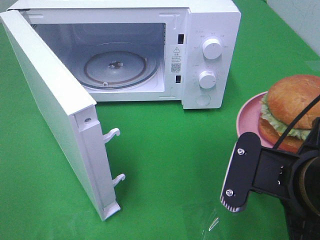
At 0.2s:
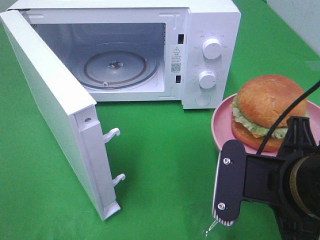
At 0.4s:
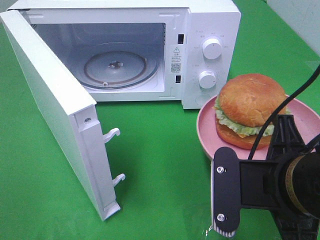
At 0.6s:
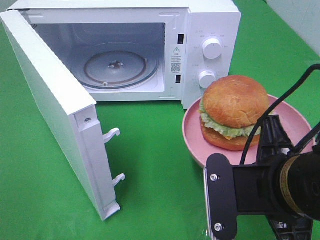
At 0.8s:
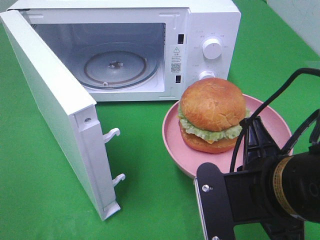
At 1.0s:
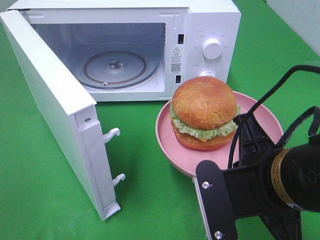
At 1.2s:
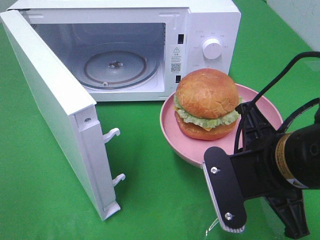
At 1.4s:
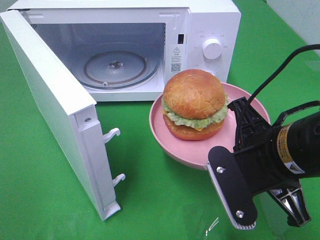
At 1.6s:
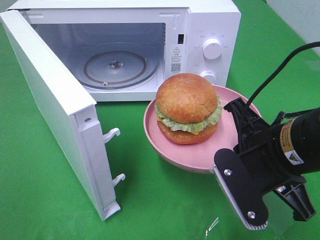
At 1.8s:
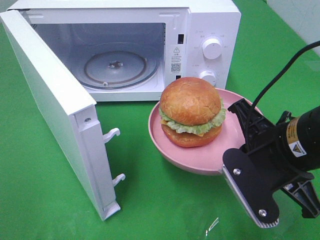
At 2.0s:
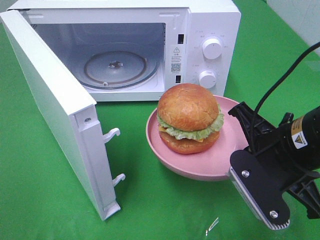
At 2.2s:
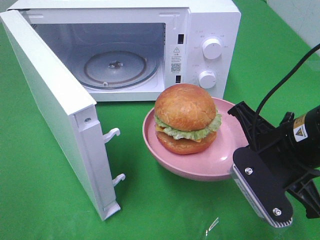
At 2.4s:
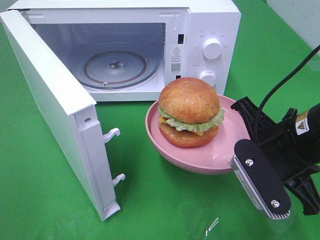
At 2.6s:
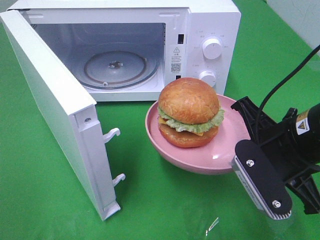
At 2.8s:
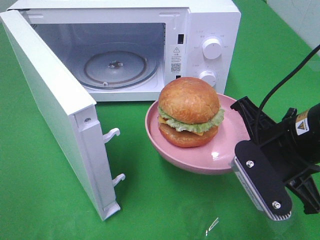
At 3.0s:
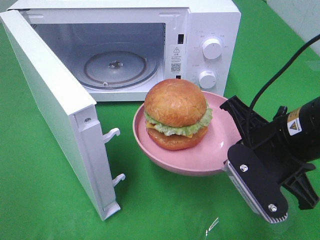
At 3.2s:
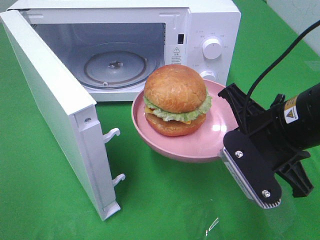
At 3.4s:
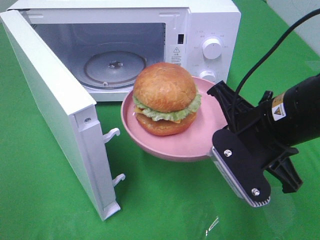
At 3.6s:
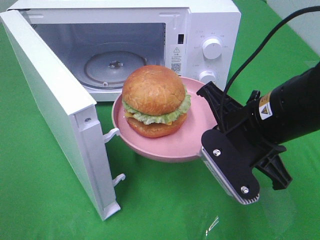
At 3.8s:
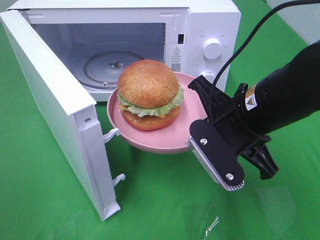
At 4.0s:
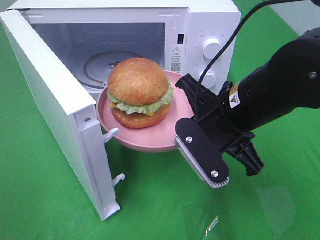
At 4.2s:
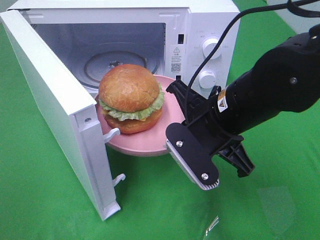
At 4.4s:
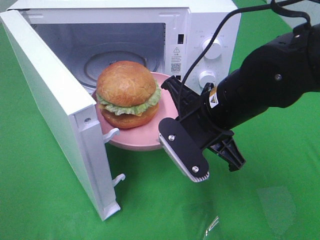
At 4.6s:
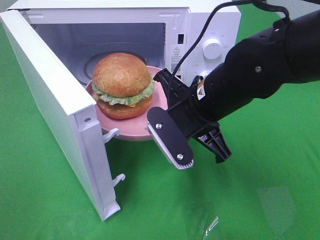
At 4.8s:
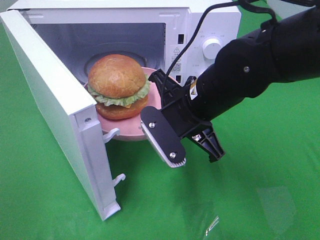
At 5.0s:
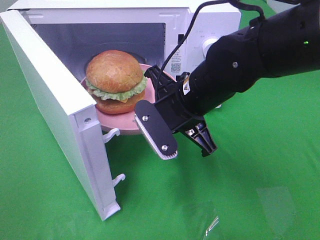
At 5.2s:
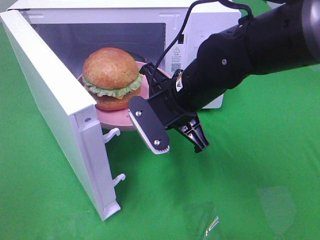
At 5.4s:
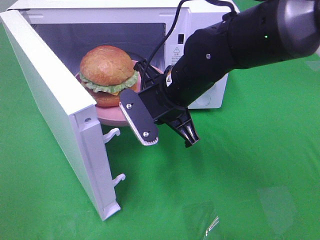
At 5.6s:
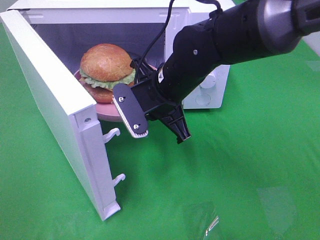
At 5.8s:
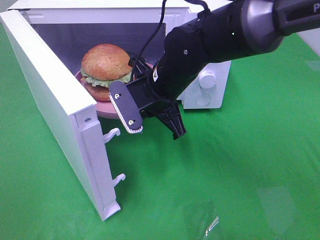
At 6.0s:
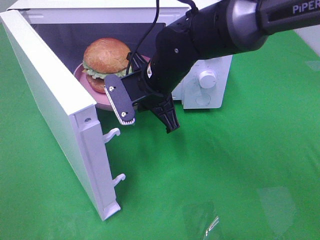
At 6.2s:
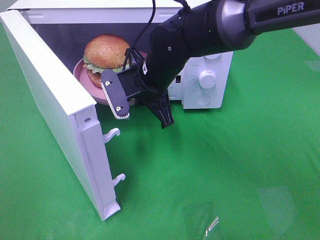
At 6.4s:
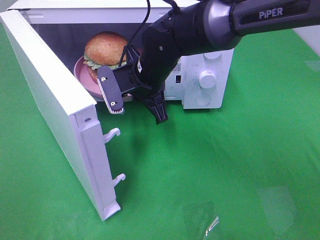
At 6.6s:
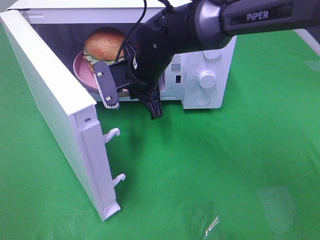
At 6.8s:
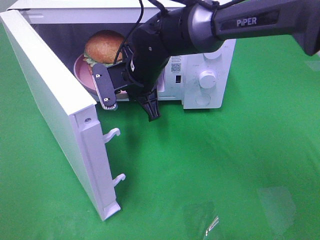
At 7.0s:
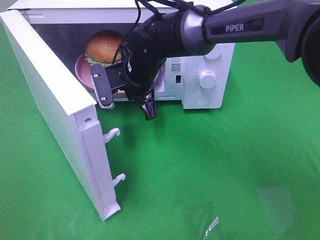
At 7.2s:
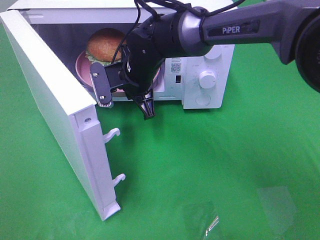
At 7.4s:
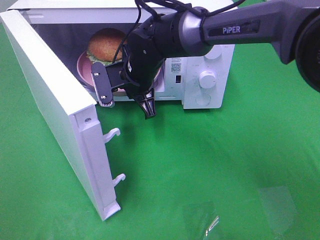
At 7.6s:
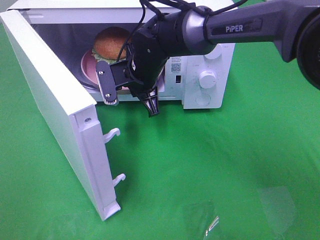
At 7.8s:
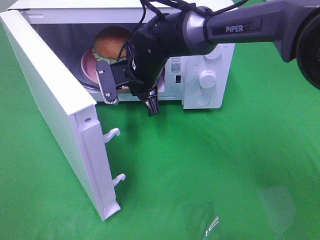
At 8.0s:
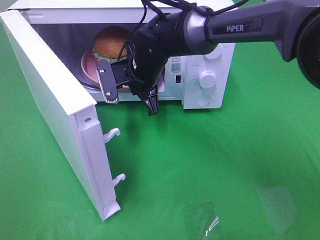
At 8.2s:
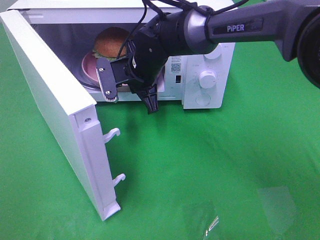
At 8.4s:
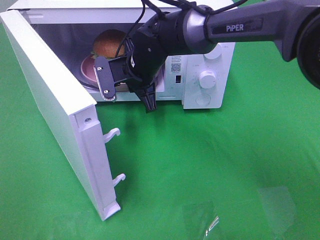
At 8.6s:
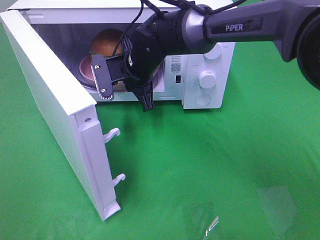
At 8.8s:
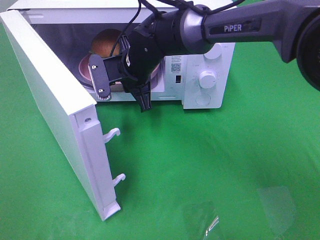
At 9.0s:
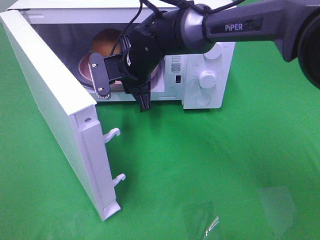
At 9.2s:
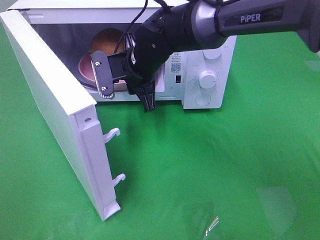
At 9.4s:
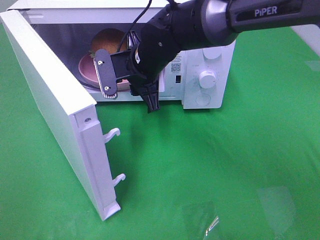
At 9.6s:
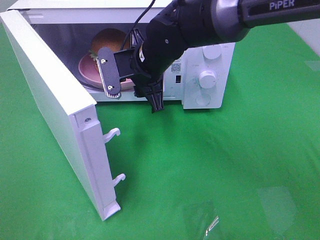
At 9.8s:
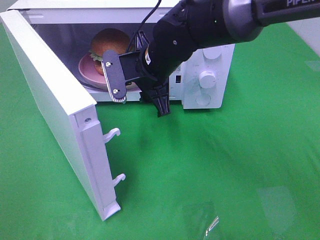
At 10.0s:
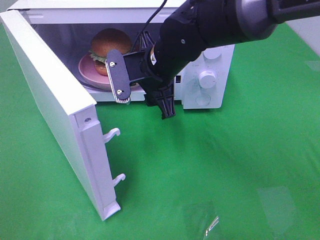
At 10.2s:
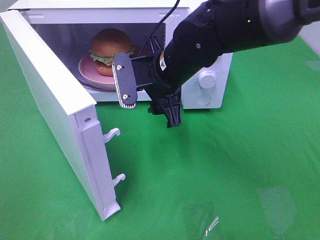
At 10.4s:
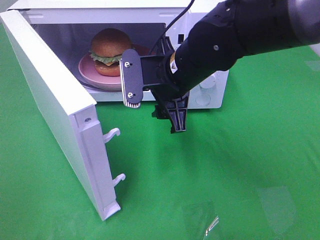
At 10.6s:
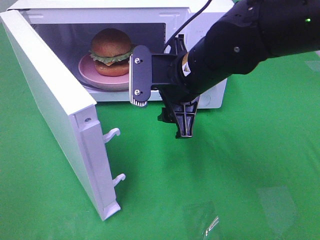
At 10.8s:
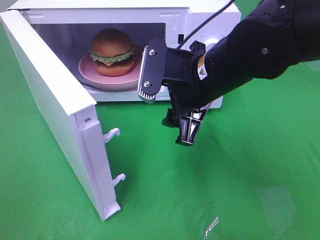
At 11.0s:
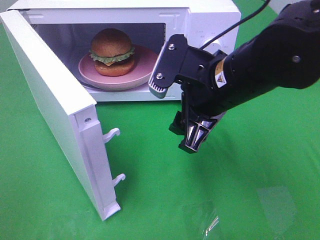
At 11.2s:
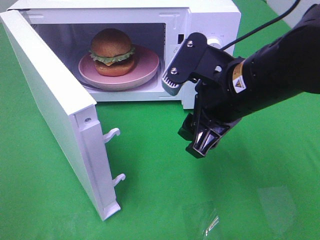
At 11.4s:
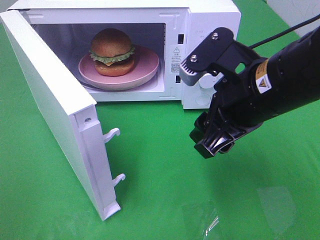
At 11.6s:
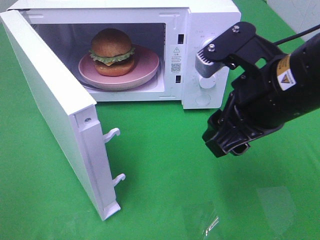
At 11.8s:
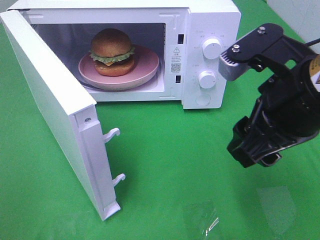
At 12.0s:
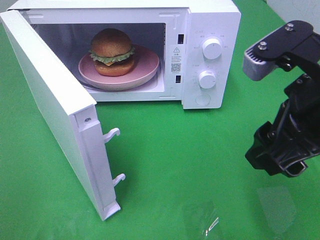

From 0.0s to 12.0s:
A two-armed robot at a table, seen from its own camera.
Task of the whole recording: Heat the burger.
Step, from 0.0s to 9.2s: Right hand: place the plate in the microwave.
From 0.0s to 1.6s: The right gripper goes roughly 5 cm forward.
From 1.6s to 3.0s: The grippers move only a little.
From 3.0s to 4.4s: The right gripper travels to the left and forward by some 10 cm.
From 4.4s to 6.0s: The right gripper moves forward and to the left, about 10 cm.
From 6.0s to 7.6s: The right gripper shifts some 5 cm forward.
From 7.6s to 9.0s: The grippers move only a little.
From 9.0s to 10.4s: The right gripper travels backward and to the right by about 10 cm, and opens its fingers.
From 10.4s to 12.0s: The right gripper shifts approximately 20 cm backward, to the right and upward.

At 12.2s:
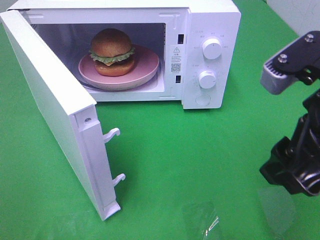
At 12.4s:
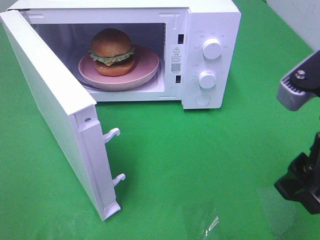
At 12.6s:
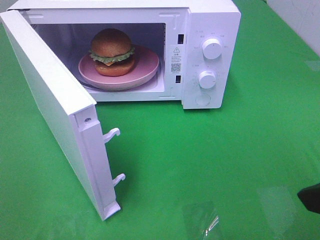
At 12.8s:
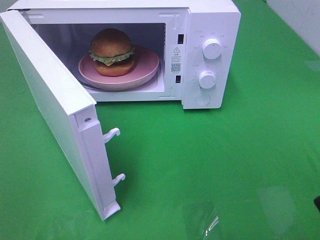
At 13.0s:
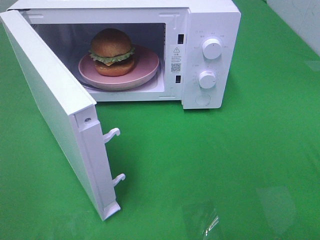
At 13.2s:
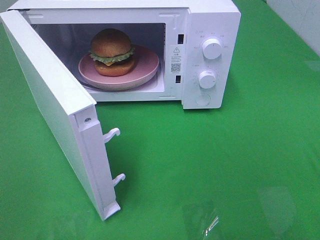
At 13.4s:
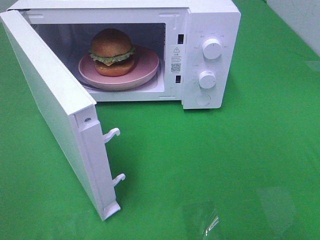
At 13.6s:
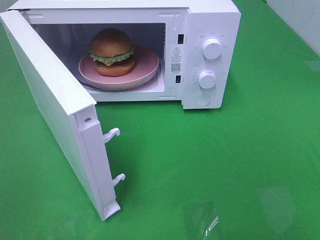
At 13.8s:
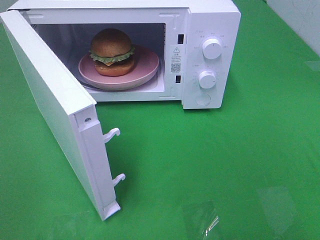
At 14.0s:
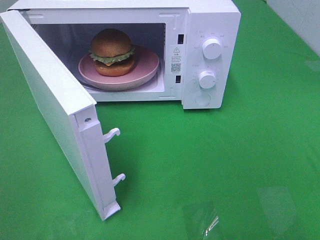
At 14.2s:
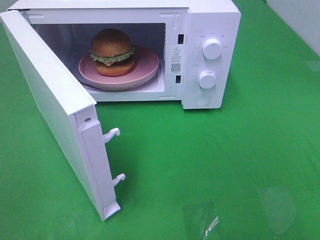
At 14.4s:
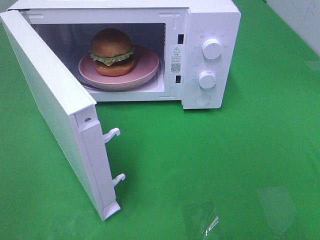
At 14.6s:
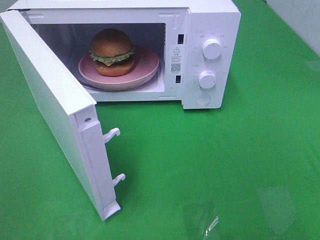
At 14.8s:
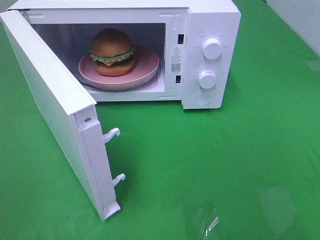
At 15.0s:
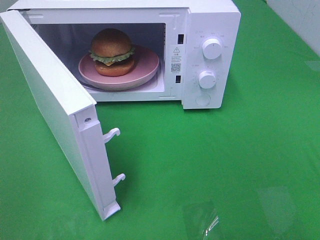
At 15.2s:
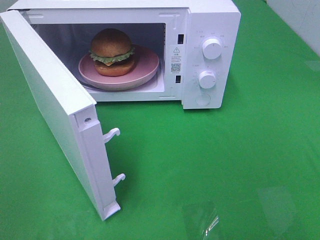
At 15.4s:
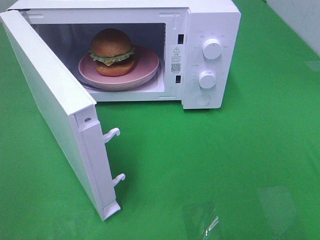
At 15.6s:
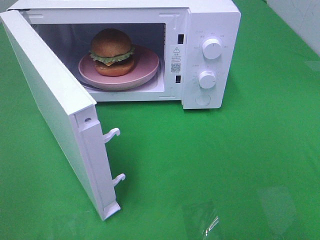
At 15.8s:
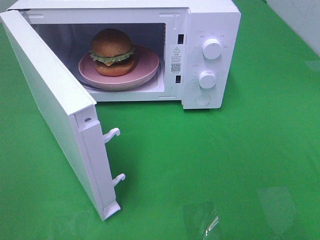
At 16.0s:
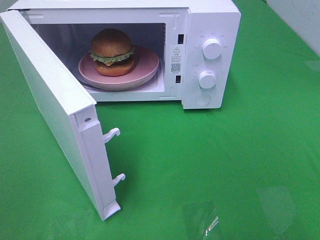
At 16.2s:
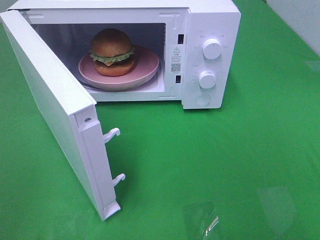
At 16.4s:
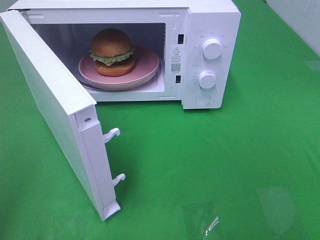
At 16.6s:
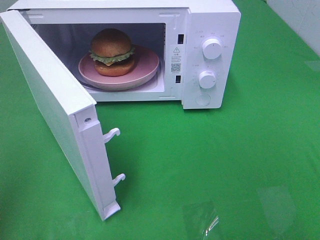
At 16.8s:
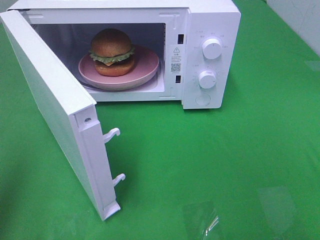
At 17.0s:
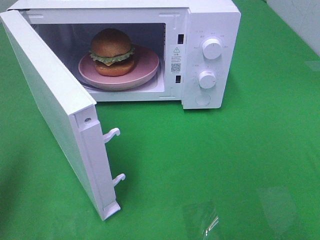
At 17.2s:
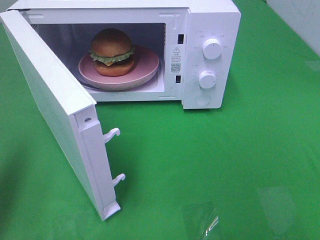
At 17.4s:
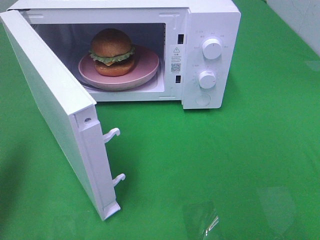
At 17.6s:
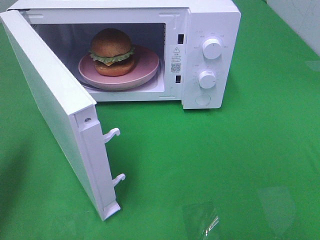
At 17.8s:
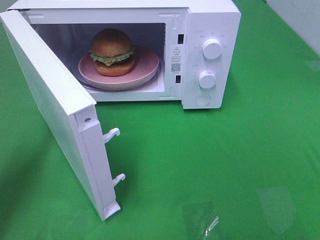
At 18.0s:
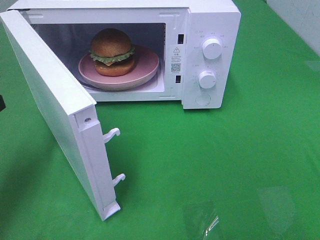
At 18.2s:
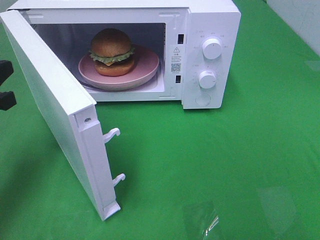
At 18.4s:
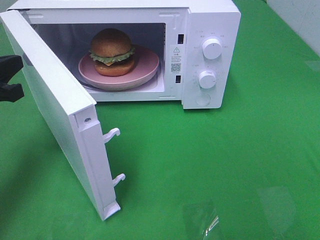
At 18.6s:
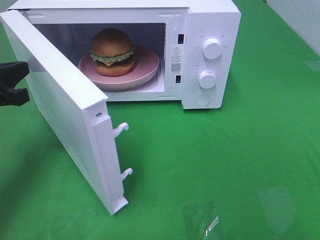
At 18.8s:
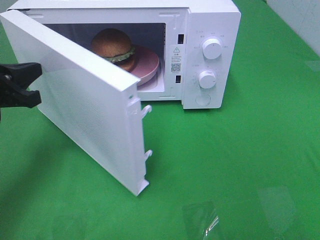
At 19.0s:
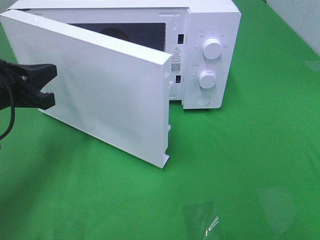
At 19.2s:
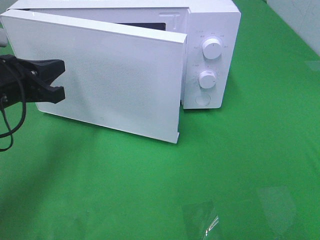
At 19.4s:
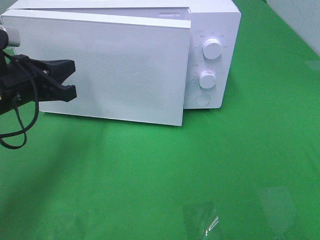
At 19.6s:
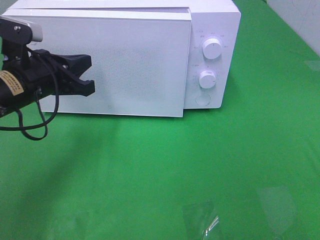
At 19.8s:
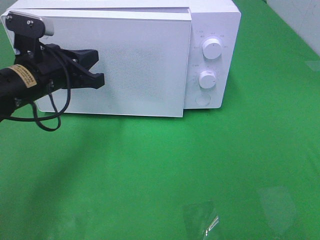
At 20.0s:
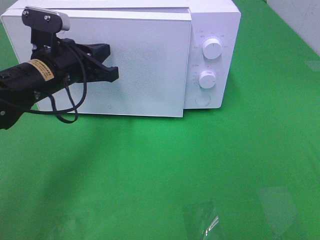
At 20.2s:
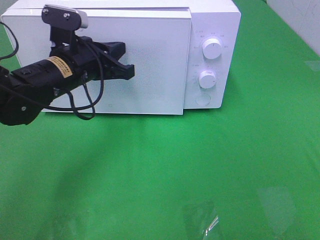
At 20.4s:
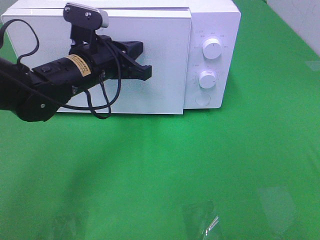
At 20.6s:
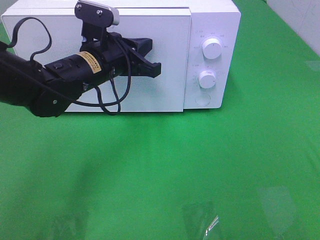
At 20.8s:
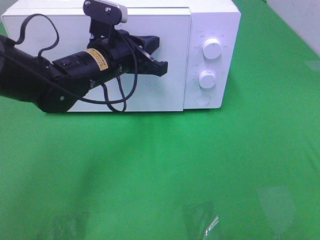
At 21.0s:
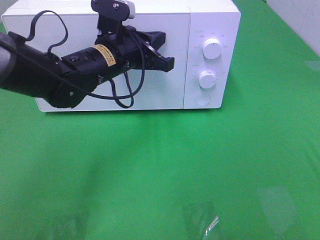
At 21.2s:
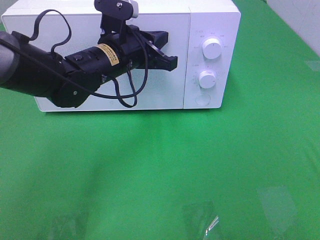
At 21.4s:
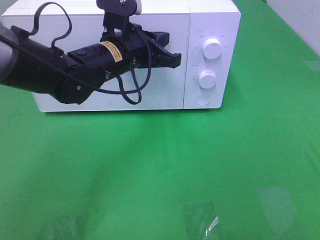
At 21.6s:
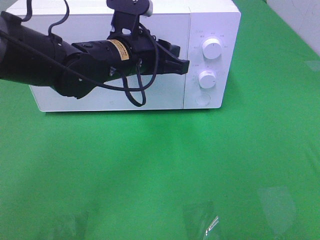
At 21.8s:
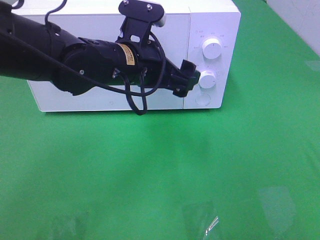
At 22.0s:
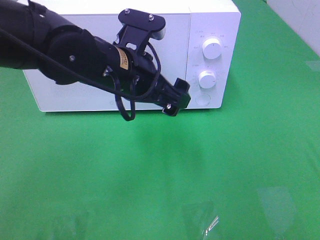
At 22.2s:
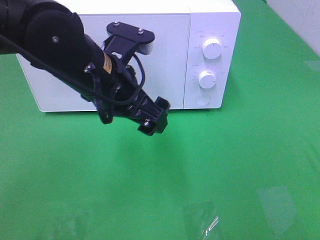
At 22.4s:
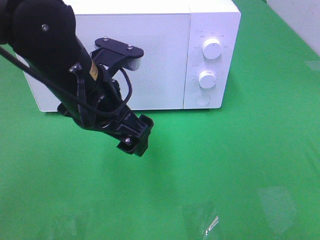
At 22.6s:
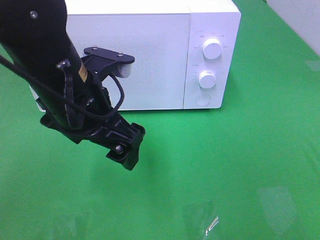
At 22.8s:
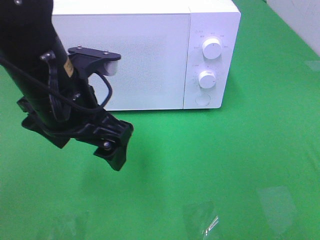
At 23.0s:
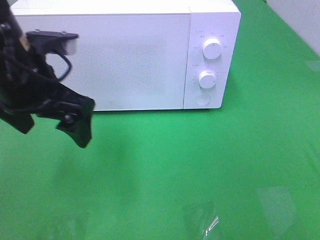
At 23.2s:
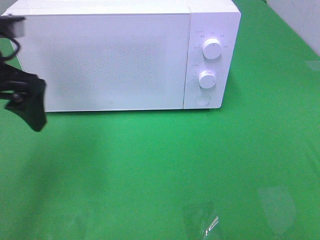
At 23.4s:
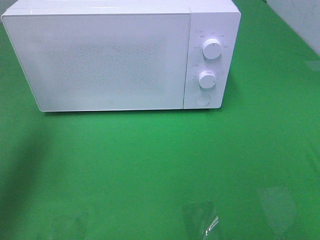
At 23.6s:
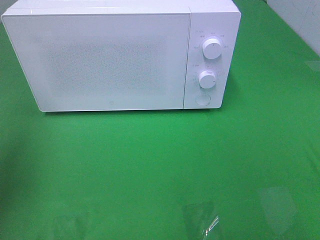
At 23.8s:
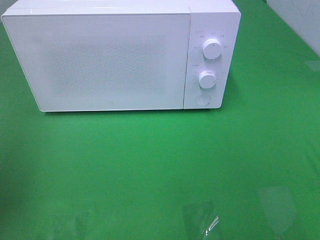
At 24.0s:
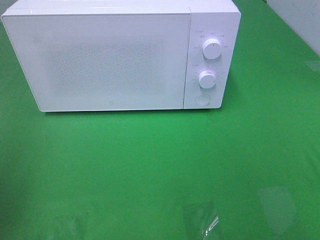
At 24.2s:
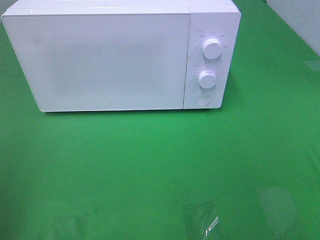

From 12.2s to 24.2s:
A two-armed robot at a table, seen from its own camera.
Task of the whole recording: Heat the burger.
Step, from 12.2s to 21.8s: Left hand: close the microwave door.
From 12.2s to 13.8s: The right gripper goes about 20 cm backward and to the right.
From 13.8s to 15.2s: Both grippers stay about where they are.
From 16.6s to 18.2s: The left gripper goes about 20 cm forward and downward.
From 18.2s to 19.8s: The left gripper is displaced to the right and forward by some 15 cm.
From 19.8s to 21.2s: The left gripper heads to the right, covering approximately 10 cm.
From 21.2s to 22.6s: The left gripper goes about 15 cm backward, and opens.
From 22.6s to 24.2s: The left gripper travels to the left and backward by some 25 cm.
